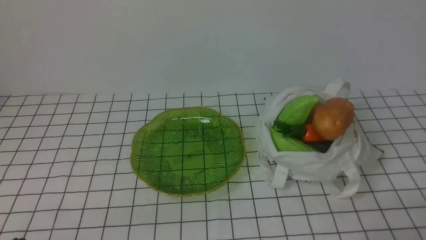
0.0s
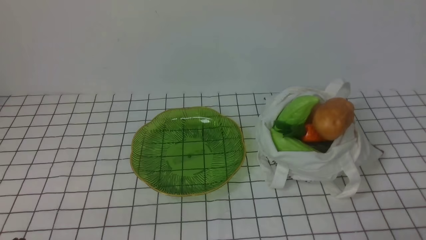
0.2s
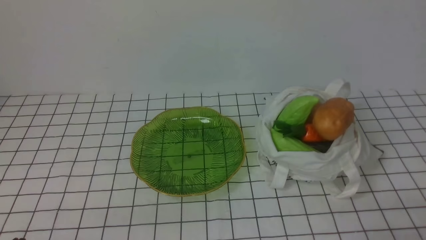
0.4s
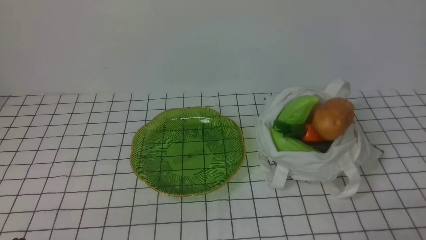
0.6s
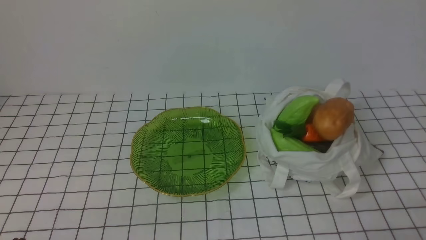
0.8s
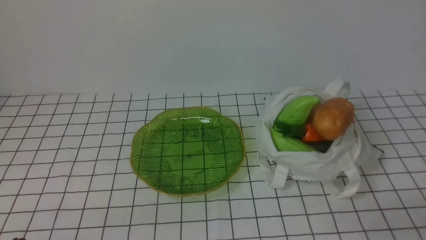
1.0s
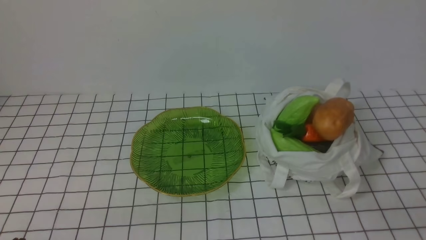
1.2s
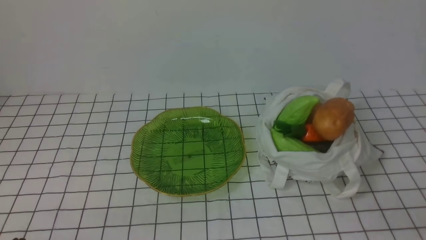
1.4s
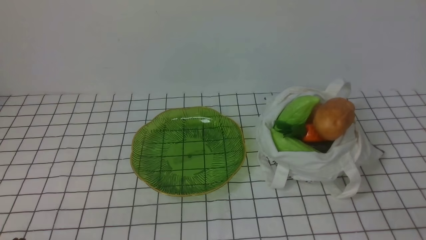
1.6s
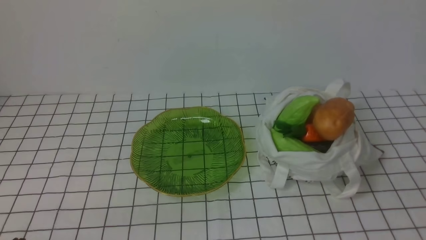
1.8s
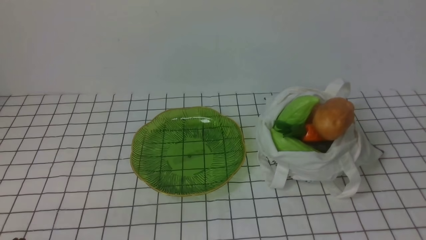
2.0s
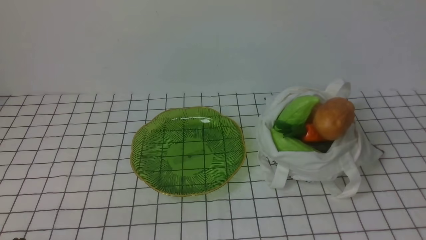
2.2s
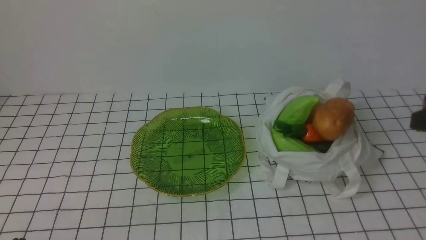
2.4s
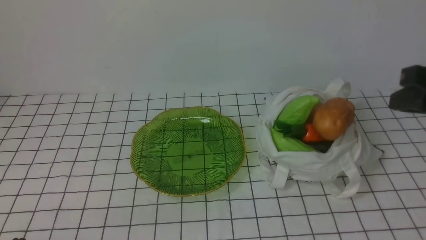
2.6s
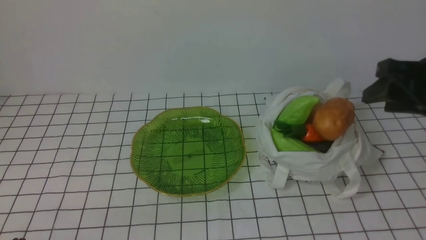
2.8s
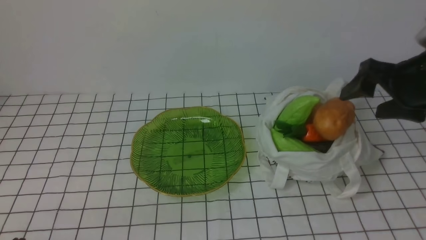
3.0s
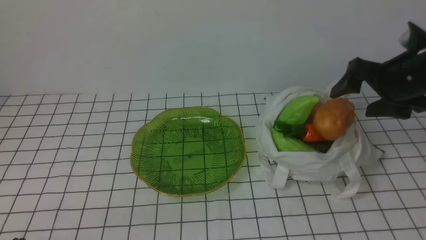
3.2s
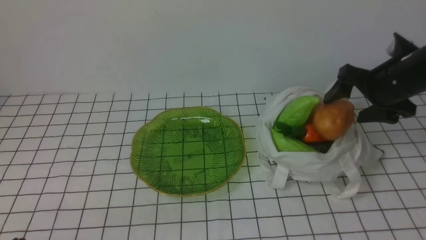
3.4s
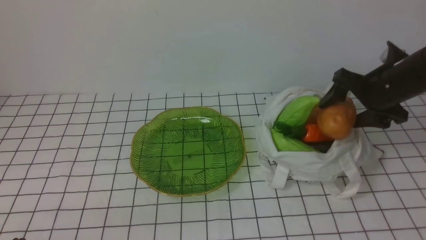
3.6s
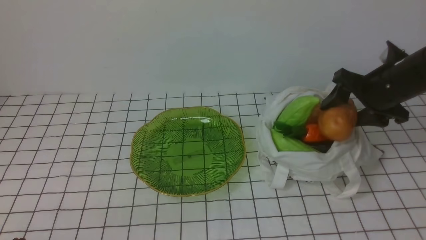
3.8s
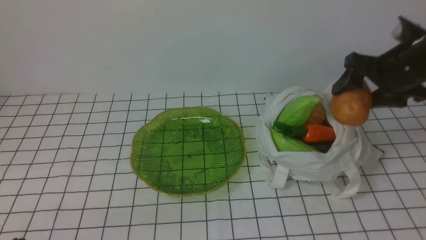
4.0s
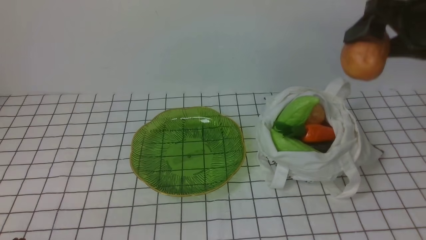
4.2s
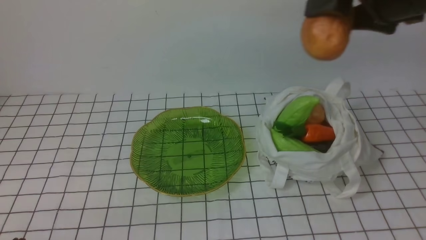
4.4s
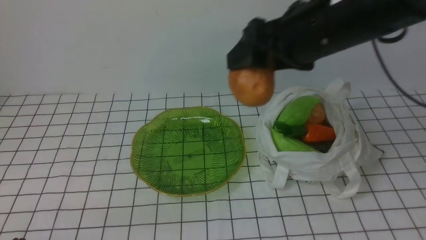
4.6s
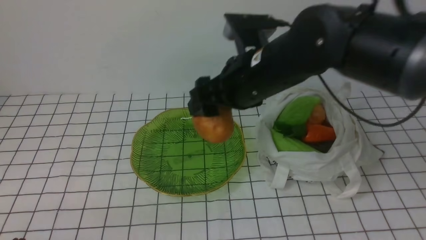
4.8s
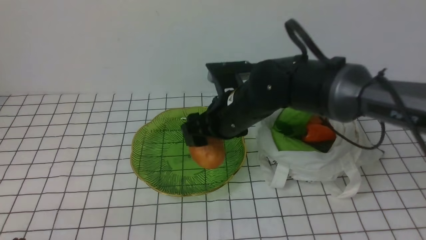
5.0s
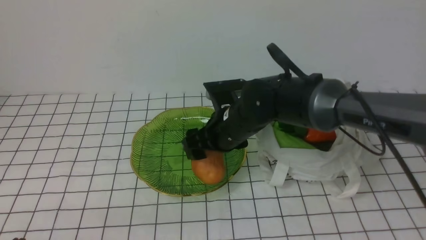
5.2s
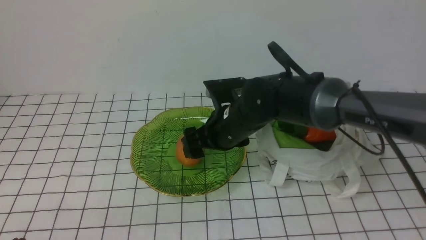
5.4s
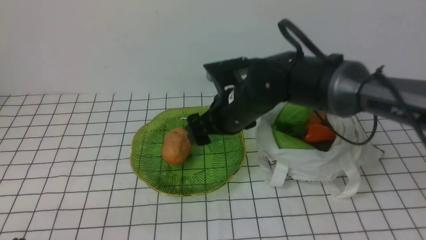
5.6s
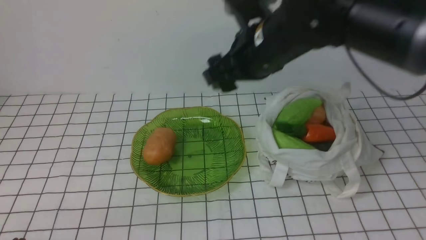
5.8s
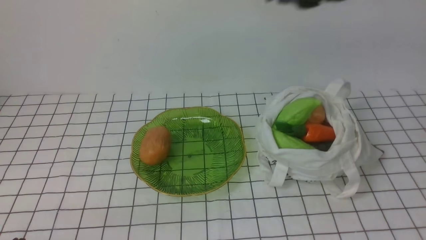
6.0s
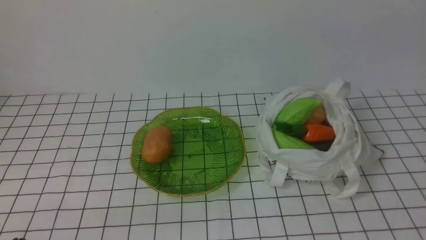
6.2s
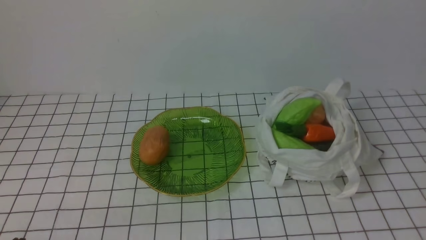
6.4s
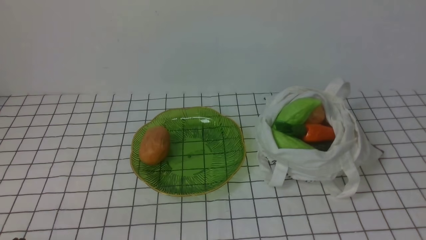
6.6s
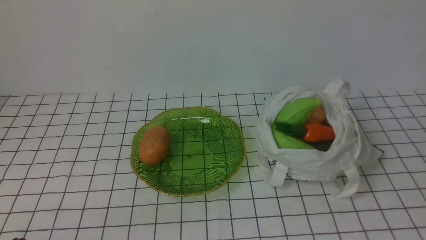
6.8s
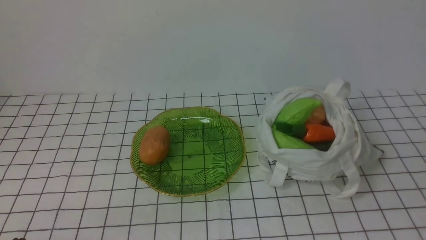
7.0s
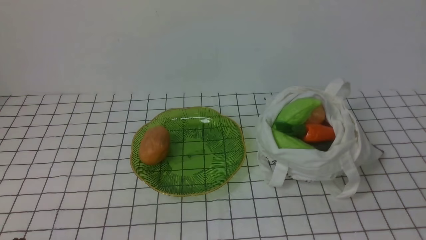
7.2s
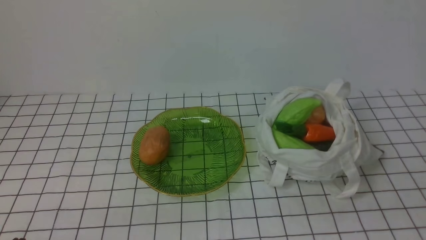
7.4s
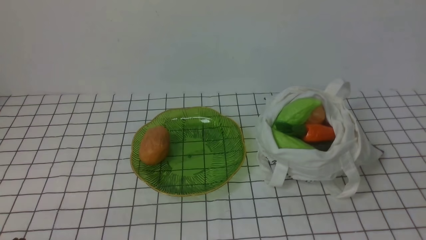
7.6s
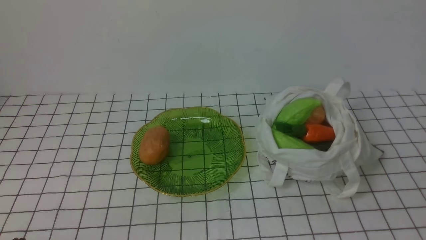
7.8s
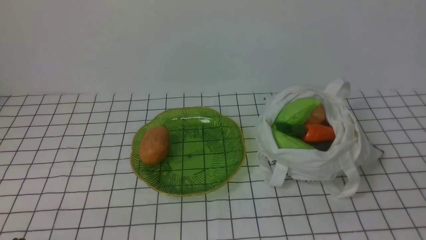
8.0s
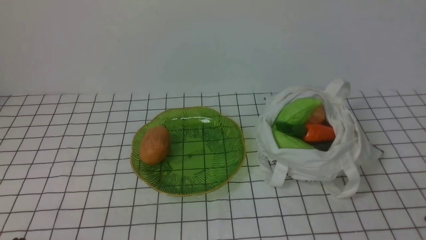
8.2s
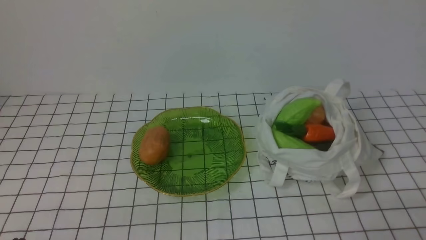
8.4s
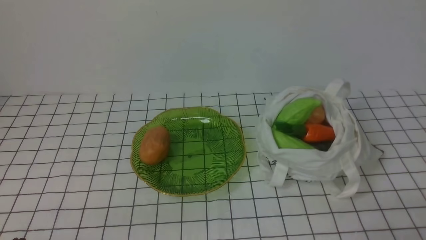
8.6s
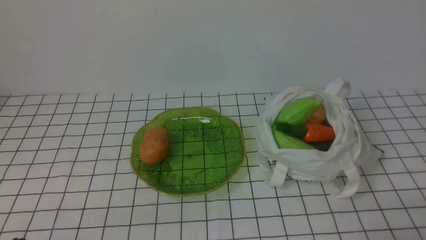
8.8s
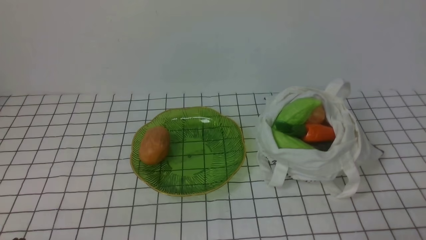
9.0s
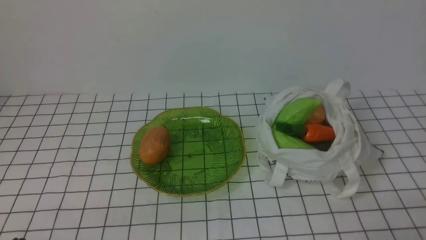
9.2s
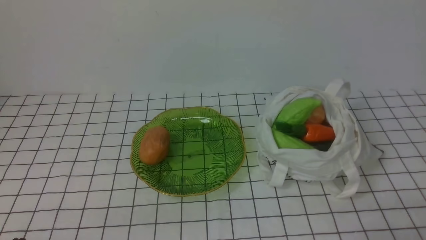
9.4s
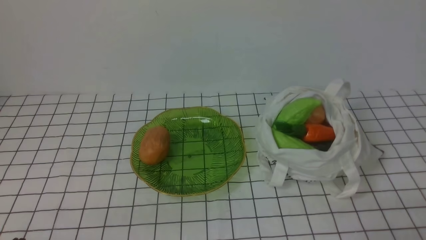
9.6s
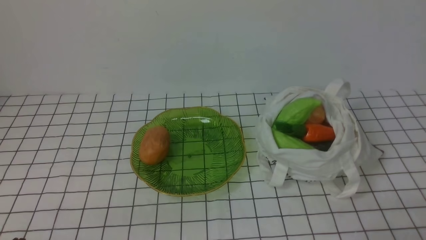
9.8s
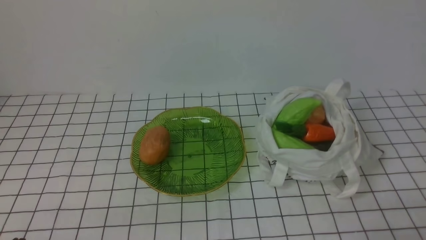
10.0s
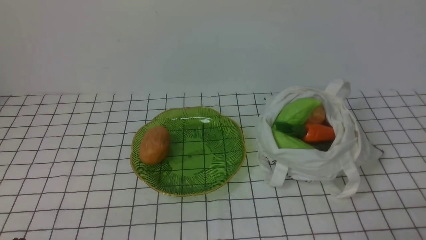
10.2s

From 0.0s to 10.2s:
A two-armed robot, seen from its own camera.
Task of the whole recording: take vegetables from bag on white checkered tablecloth place on plate.
Step, from 0.0s to 3.6s: Grasp the potato with right gripper.
Step, from 3.8s to 5.4s: Place the potato on the plate with right gripper.
From 1.4s to 3.0s: The right gripper goes some 25 cm forward, and opens its fingers.
From 3.0s to 4.4s: The right gripper travels upward and to the left by some 15 cm.
From 4.4s to 5.8s: The right gripper moves to the left, some 10 cm, and goes downward and returns, about 20 cm each way.
From 5.8s to 7.2s: The right gripper heads backward and to the right, covering roughly 35 cm, and closes up.
From 8.8s to 10.2s: The two grippers keep their place.

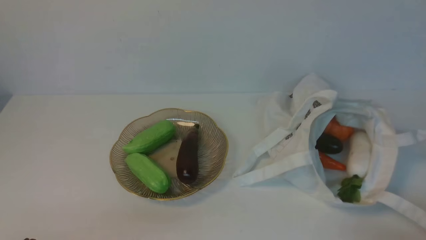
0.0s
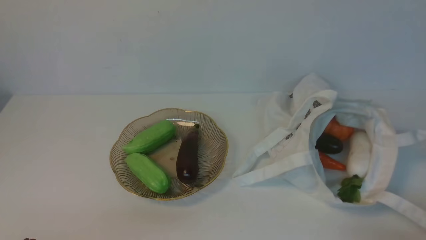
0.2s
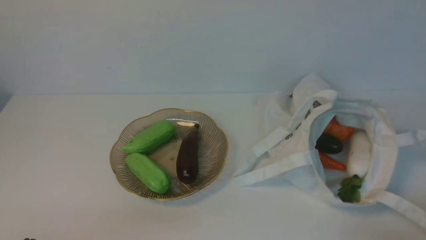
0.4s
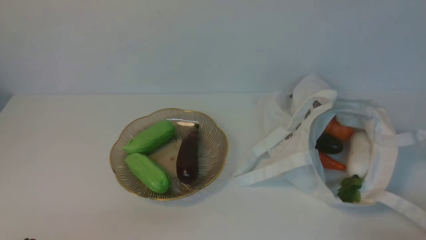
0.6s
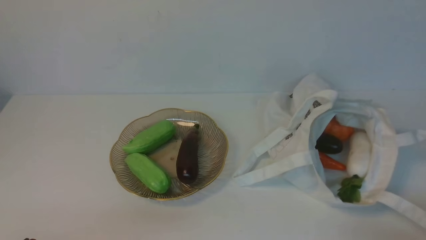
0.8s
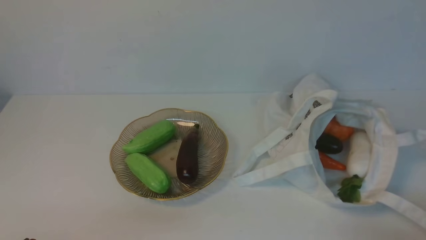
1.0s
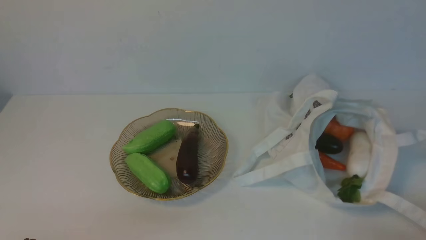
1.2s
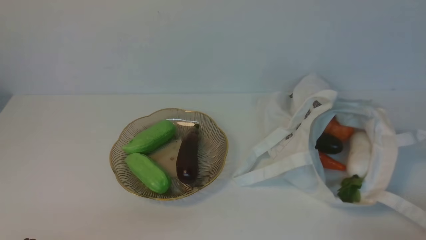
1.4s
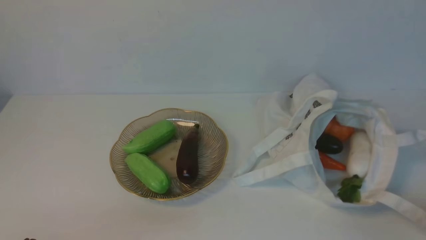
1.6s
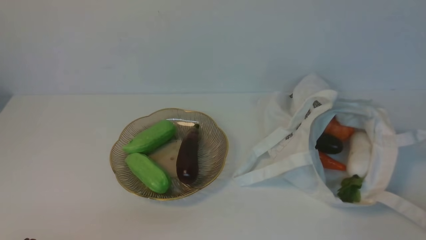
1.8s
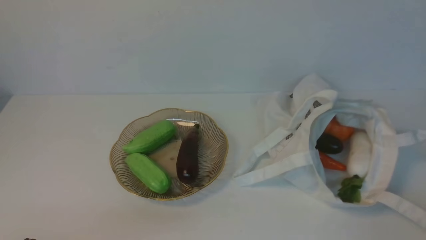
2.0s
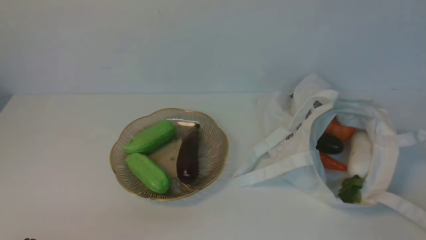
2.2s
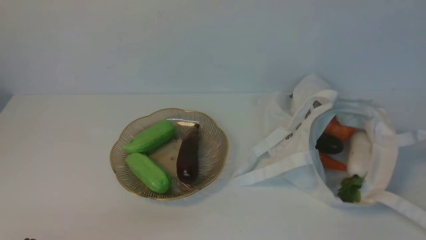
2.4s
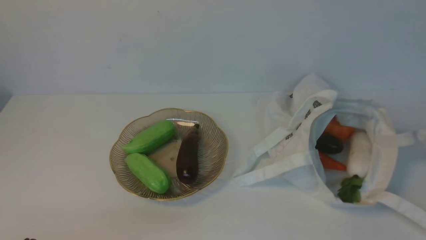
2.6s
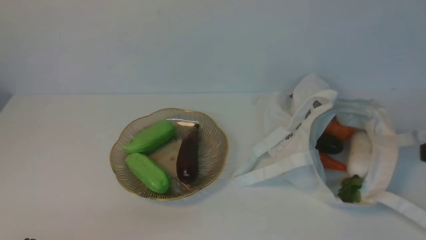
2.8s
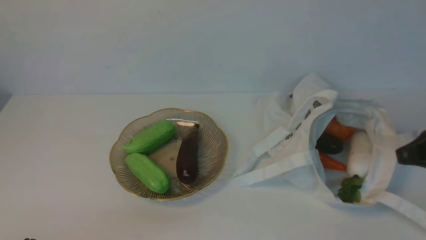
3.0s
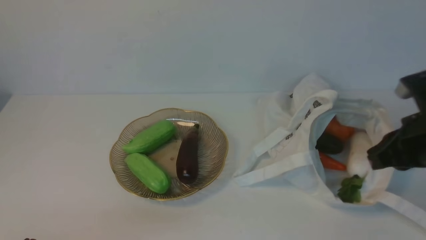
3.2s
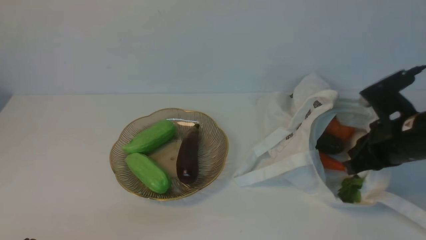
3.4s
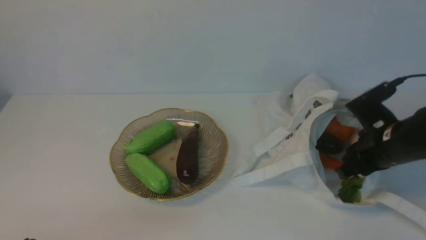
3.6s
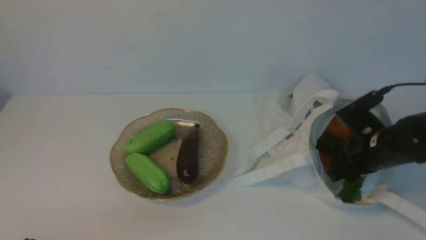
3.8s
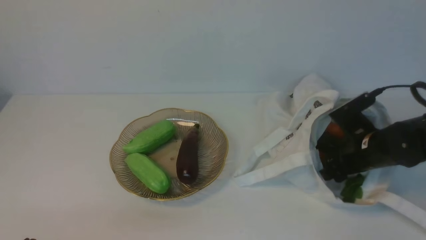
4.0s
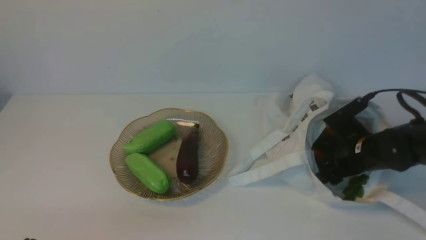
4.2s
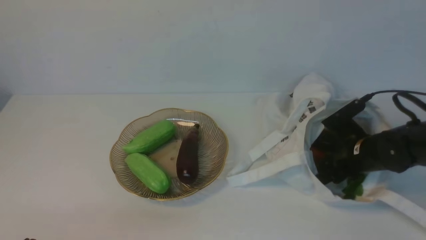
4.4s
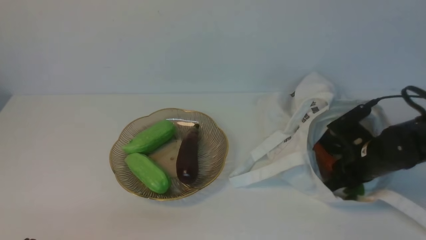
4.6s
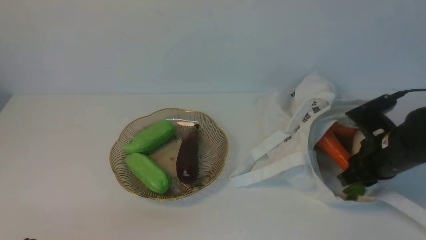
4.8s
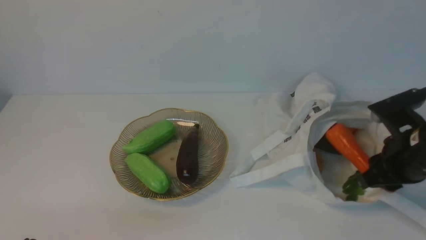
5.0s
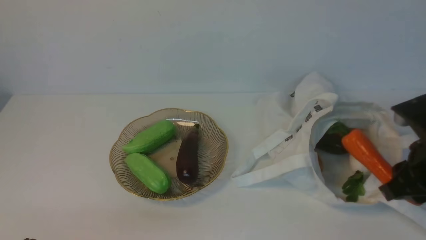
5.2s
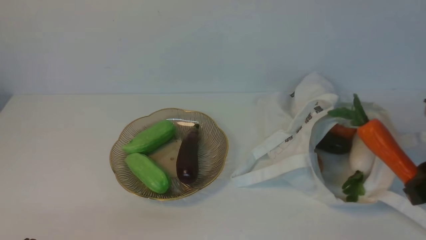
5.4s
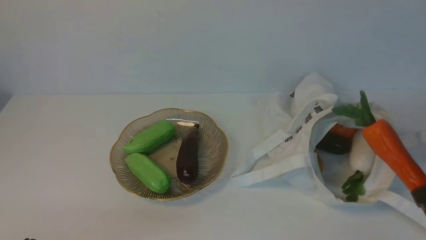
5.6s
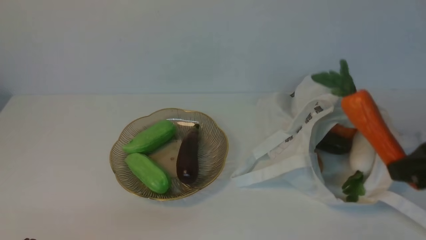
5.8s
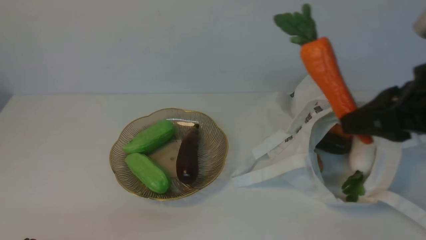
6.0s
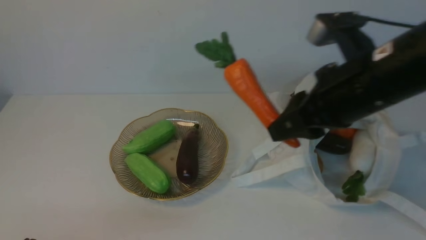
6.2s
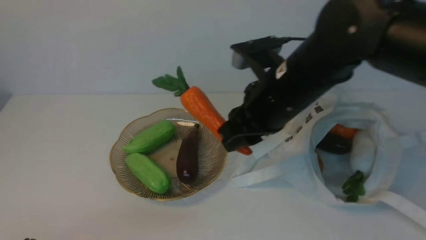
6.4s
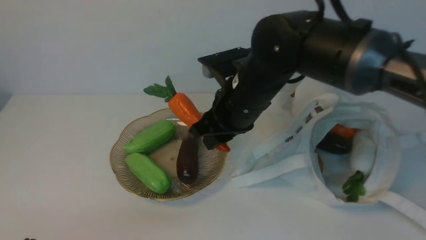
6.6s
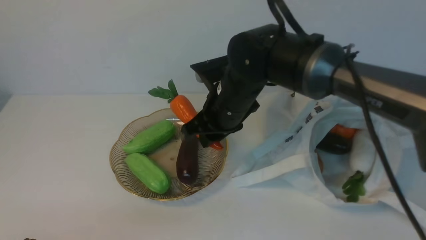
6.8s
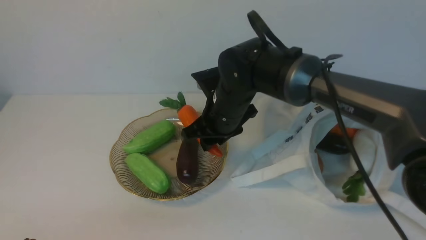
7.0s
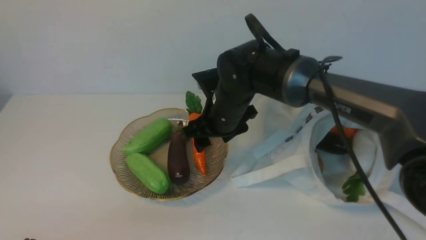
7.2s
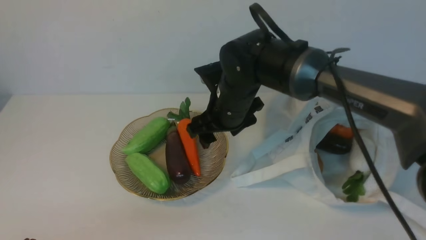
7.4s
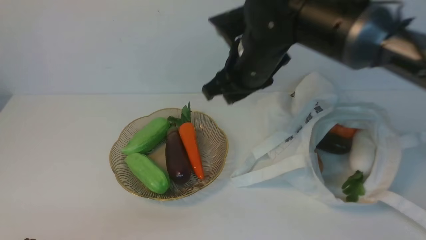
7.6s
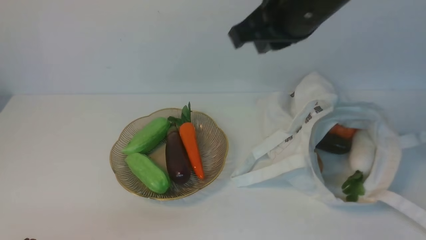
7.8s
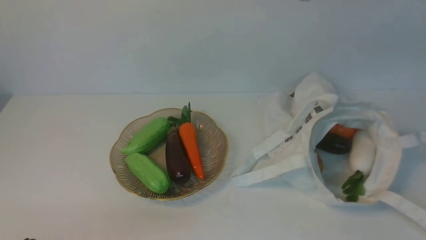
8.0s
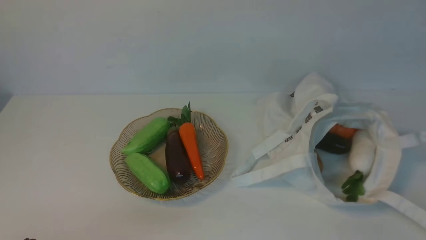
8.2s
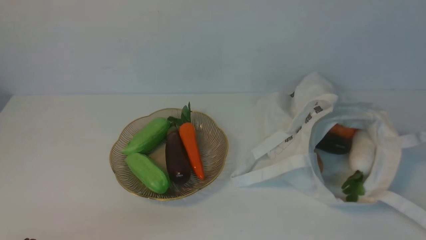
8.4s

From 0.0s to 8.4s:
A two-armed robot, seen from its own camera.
Task of the whole recording: take vegetables from cloth bag on white table place on plate.
Step, from 0.0s to 4.2s: Grasp the carrot with right gripper.
Step, from 4.4s to 7.4s: Place the carrot on the plate with right gripper.
From 2.8s to 4.2s: The right gripper is displaced downward and forward by approximately 25 cm, and opens.
From 4.2s to 5.6s: The right gripper goes about 25 cm upward and backward, and closes up.
From 5.6s to 7.0s: The right gripper goes approximately 30 cm to the left and forward.
From 7.0s to 8.4s: The right gripper is displaced backward, upward and to the right by some 40 cm, and closes up.
